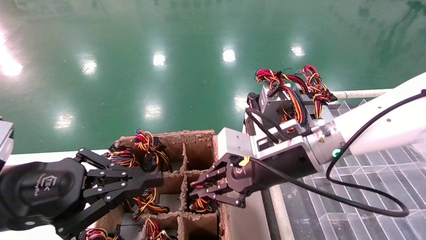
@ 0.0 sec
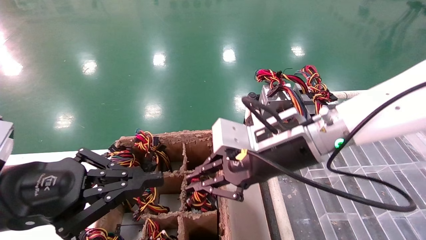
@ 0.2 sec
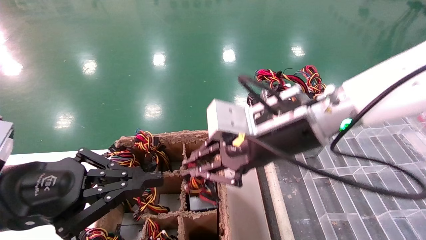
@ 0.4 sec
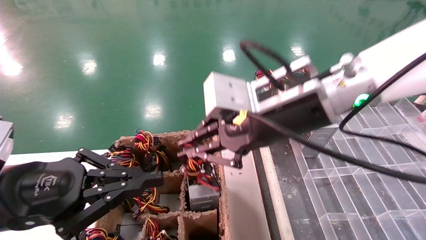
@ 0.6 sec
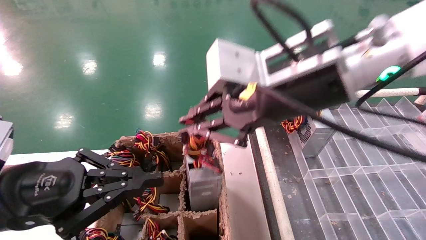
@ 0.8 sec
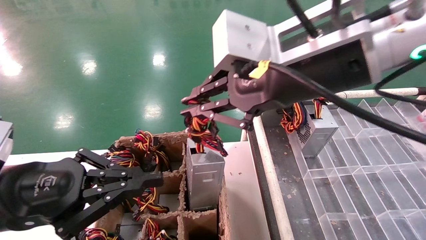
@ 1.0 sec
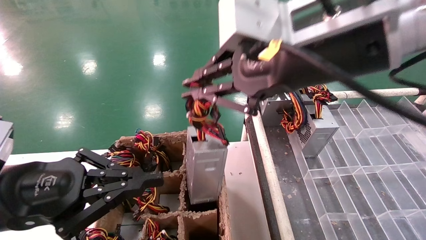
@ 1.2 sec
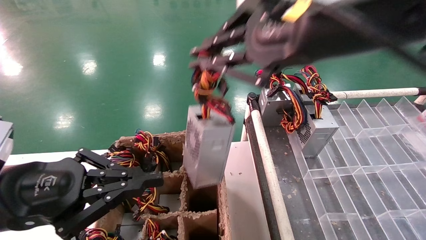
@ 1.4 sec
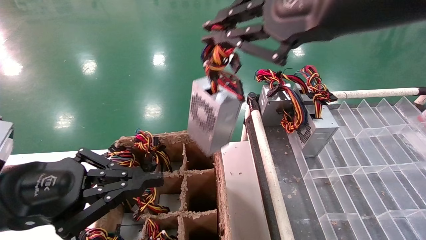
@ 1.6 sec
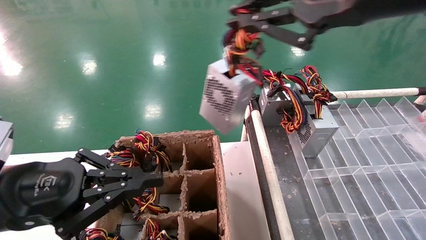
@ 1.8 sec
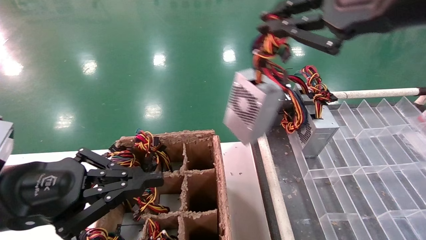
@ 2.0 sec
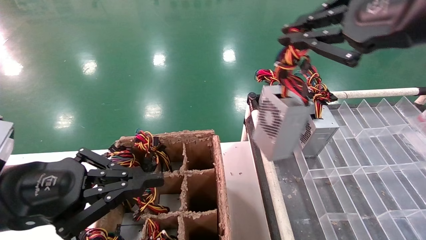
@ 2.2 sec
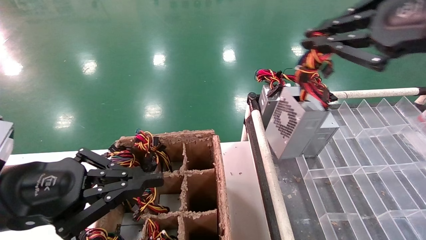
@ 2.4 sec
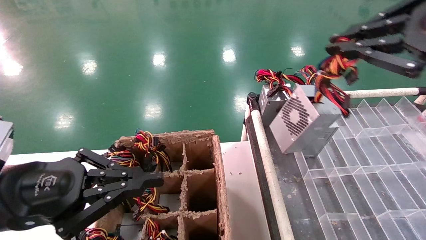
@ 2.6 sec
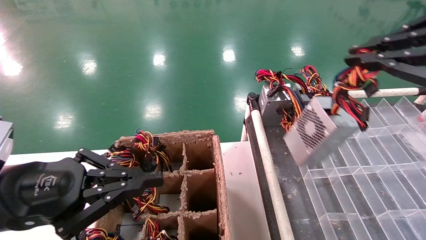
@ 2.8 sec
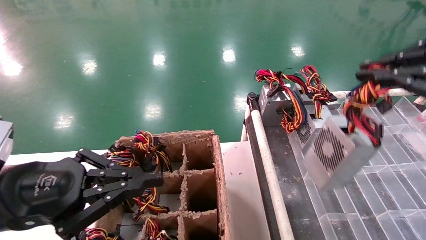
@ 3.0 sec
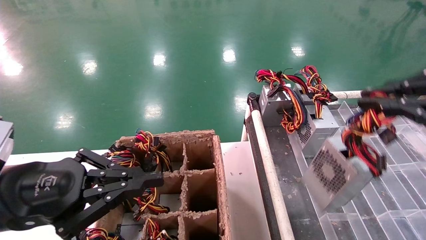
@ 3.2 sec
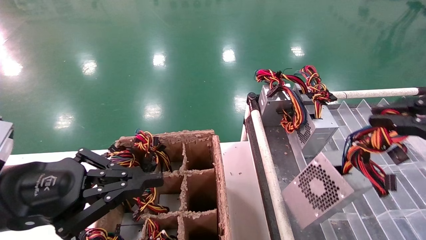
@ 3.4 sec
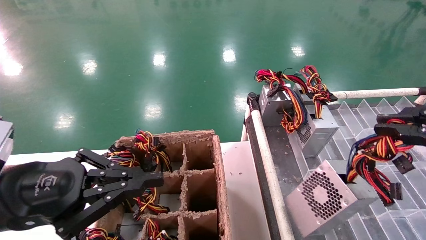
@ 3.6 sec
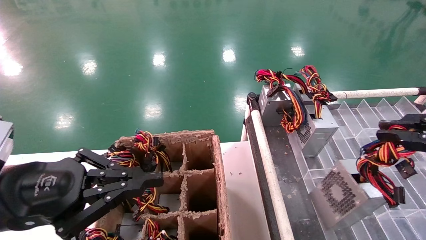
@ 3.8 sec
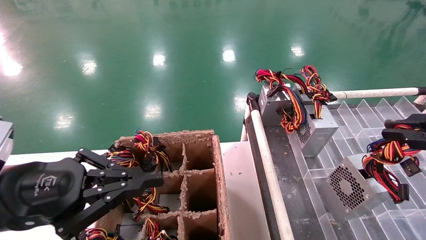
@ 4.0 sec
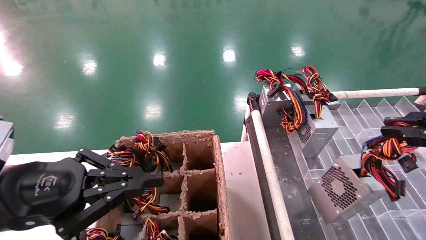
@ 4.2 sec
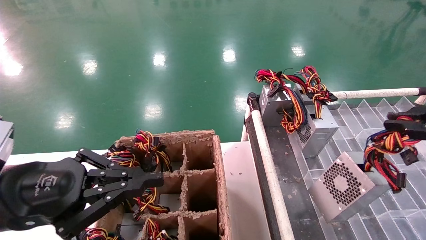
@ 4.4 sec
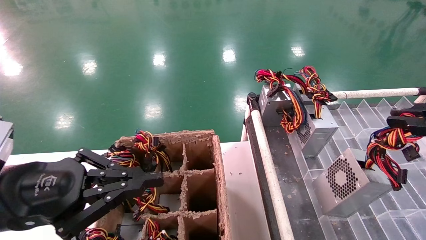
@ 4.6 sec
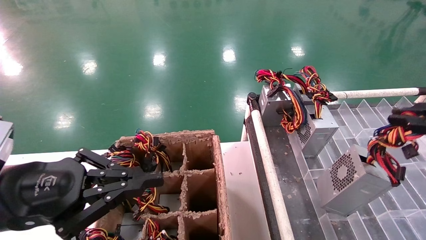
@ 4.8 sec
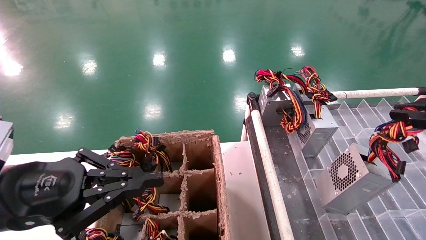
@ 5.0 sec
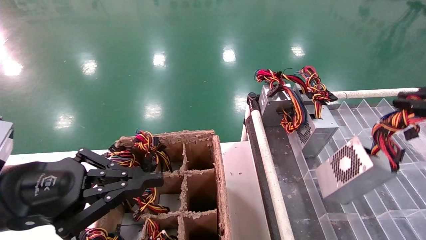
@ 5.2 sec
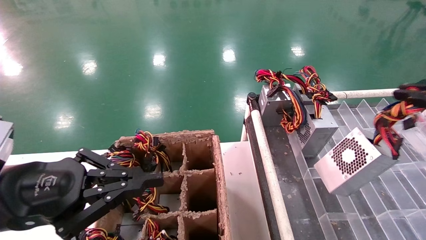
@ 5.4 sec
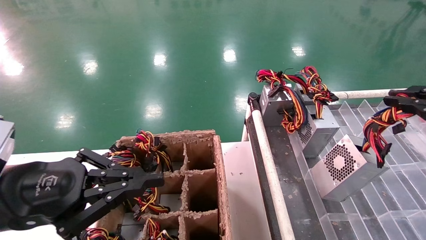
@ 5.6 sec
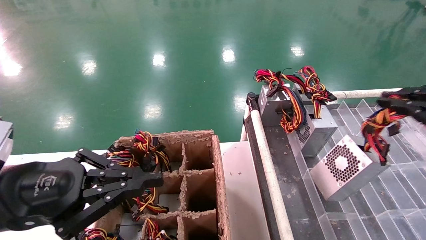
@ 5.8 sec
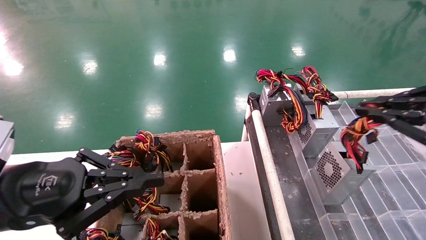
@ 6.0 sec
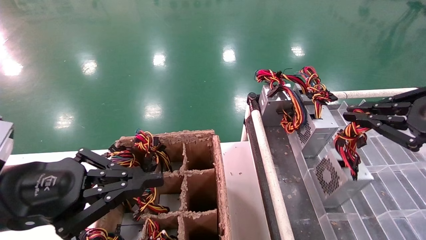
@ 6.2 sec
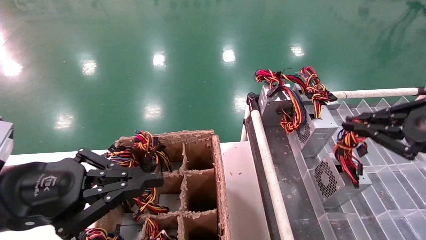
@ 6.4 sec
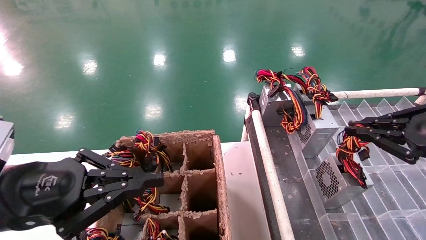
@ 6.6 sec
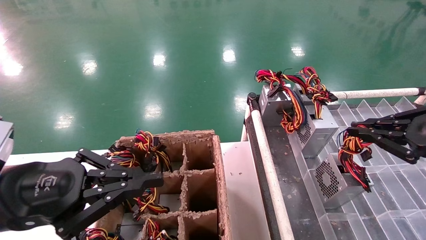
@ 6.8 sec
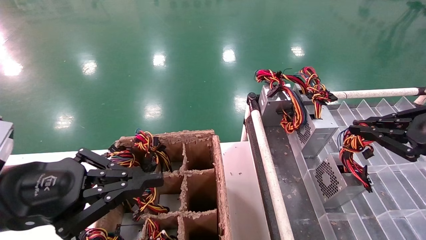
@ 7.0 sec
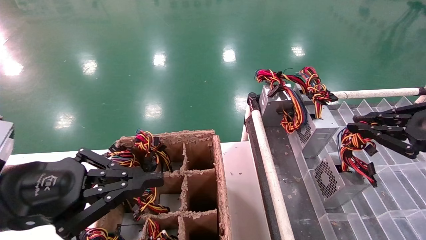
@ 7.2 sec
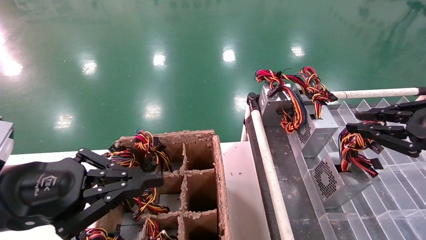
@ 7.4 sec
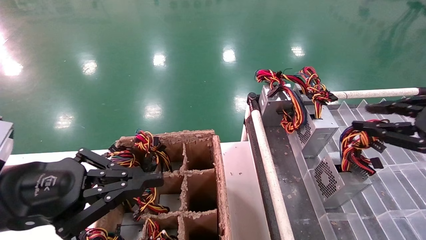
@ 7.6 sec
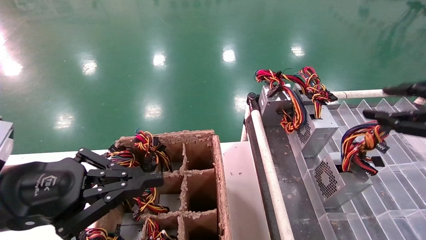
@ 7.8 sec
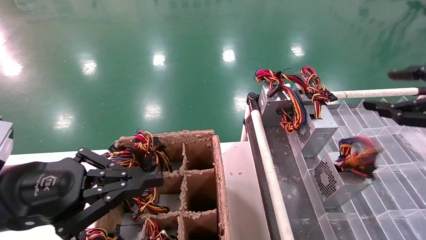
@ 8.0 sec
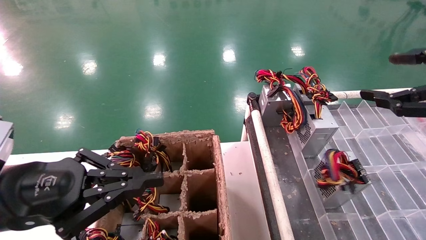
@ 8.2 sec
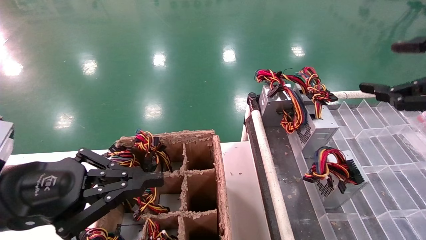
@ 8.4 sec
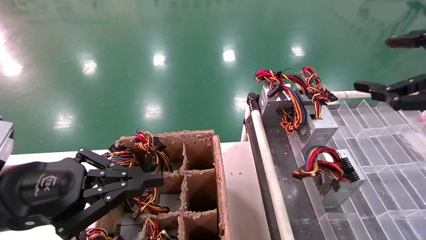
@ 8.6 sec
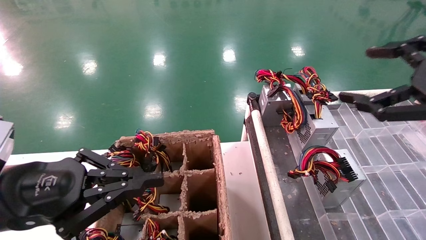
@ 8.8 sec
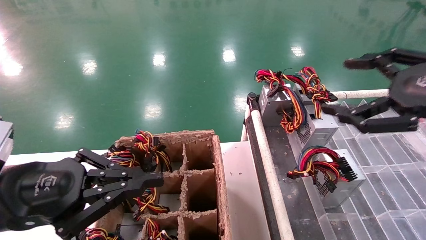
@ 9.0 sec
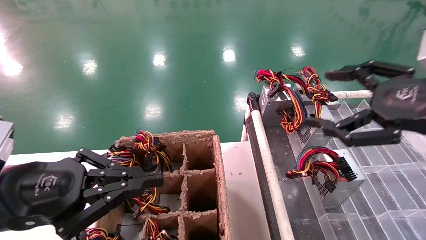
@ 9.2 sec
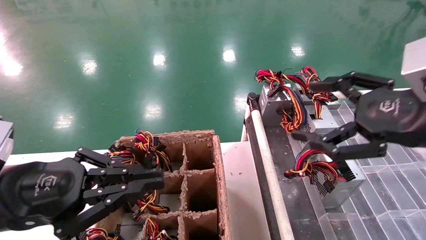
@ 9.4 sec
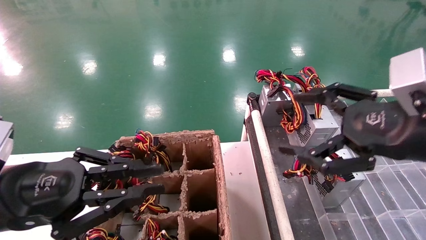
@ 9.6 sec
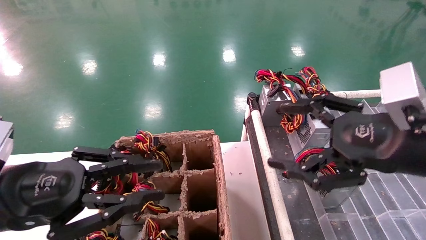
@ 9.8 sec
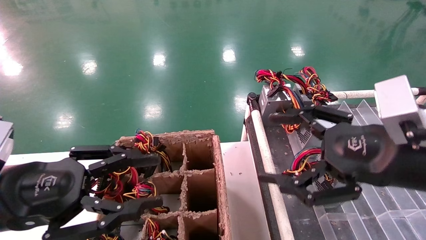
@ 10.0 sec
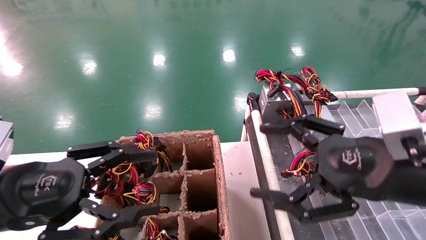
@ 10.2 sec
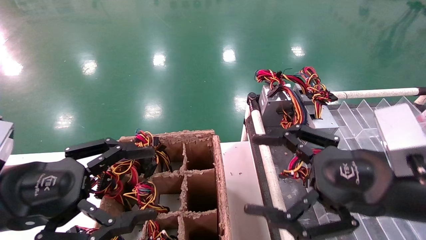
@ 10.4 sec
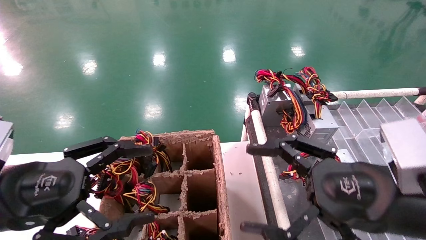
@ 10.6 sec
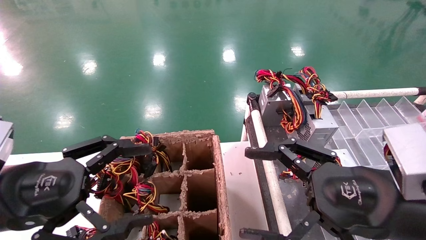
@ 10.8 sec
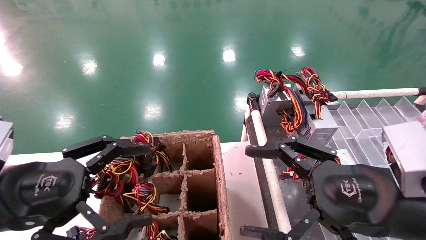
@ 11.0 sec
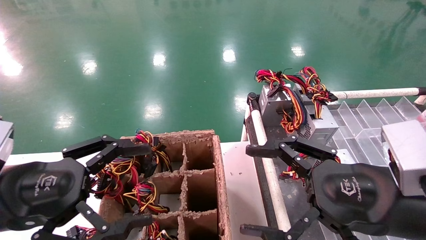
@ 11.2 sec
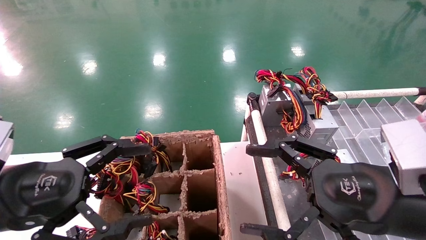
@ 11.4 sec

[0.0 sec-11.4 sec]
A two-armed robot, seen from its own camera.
Step, 0.0 sec to 7.4 sec: Place the main unit power supply in the designated area.
0.0 sec to 1.4 sec: The right gripper heads upward and backward, covering approximately 25 cm.
1.4 sec to 2.8 sec: The right gripper travels to the right by about 15 cm.
2.8 sec to 4.2 sec: The right gripper heads downward and to the right, covering roughly 10 cm.
4.2 sec to 5.6 sec: The right gripper changes place by some 5 cm.
5.6 sec to 7.2 sec: The right gripper ends up roughly 5 cm from where it was.
7.2 sec to 8.6 sec: The right gripper shifts about 5 cm upward, and opens its fingers.
8.6 sec to 10.0 sec: The right gripper heads to the left and downward, covering about 15 cm.
10.0 sec to 11.4 sec: The right gripper ends up approximately 5 cm from where it was. Meanwhile the left gripper opens.
